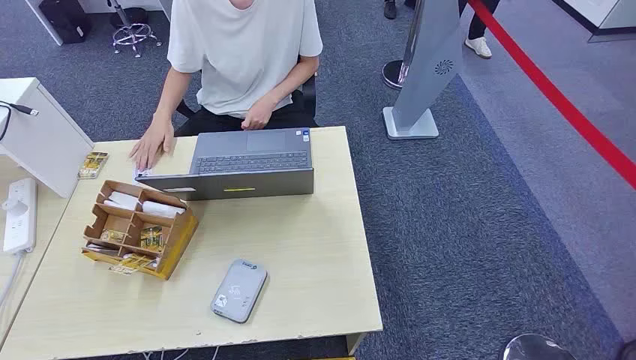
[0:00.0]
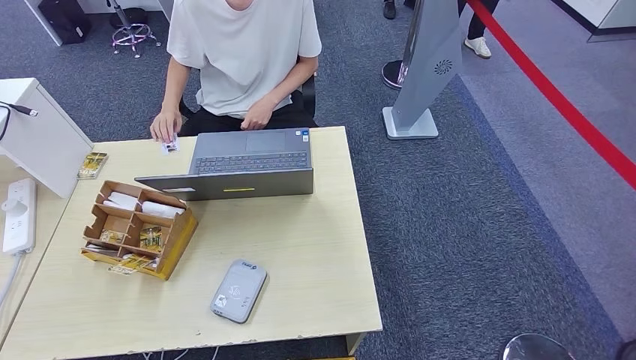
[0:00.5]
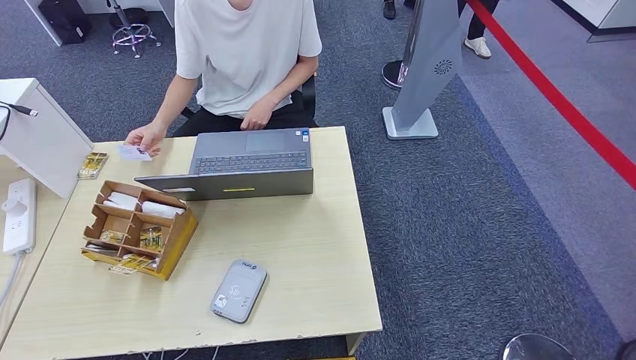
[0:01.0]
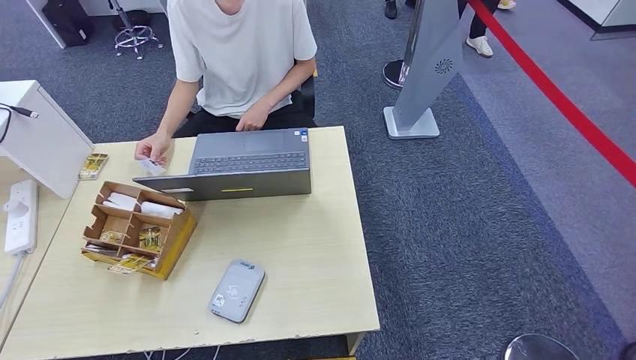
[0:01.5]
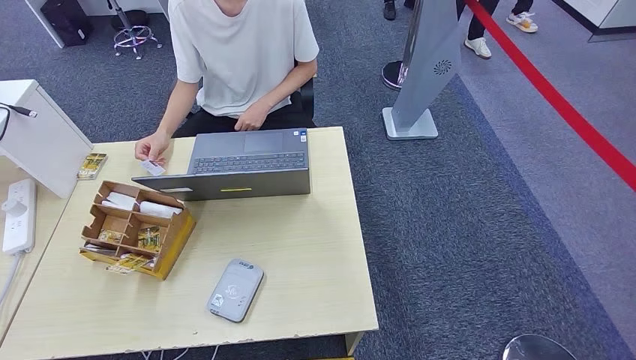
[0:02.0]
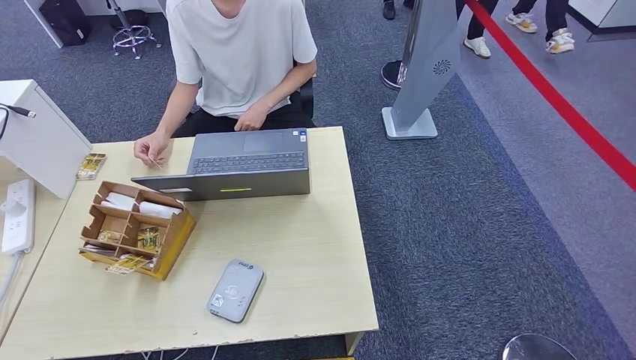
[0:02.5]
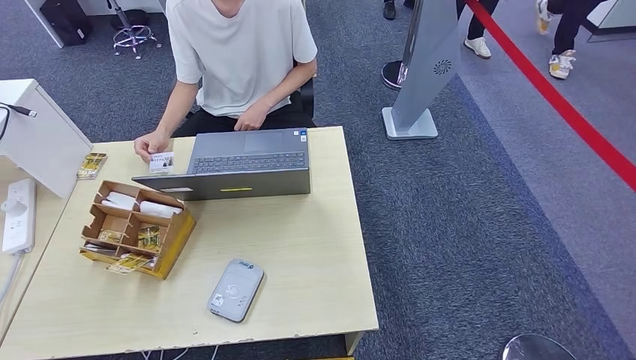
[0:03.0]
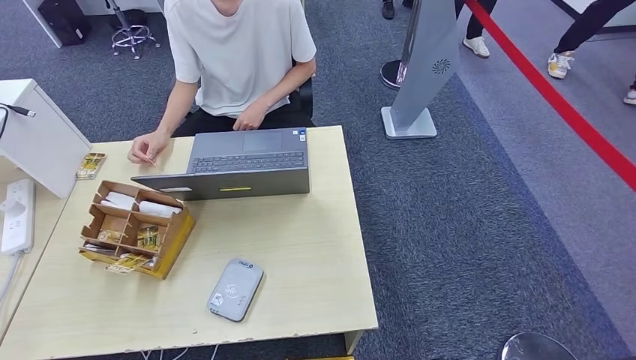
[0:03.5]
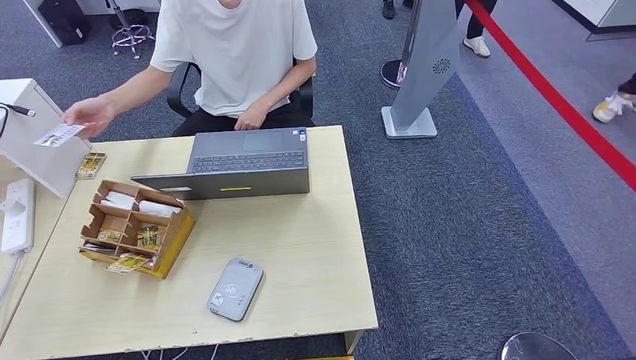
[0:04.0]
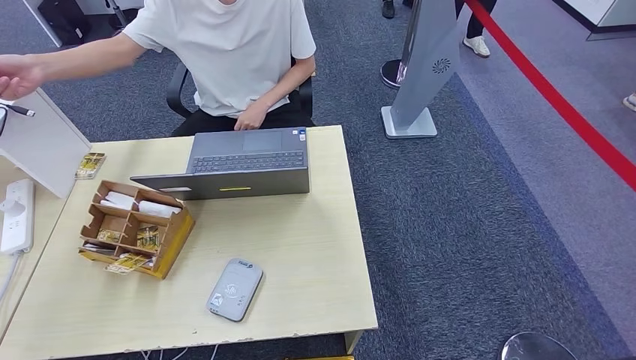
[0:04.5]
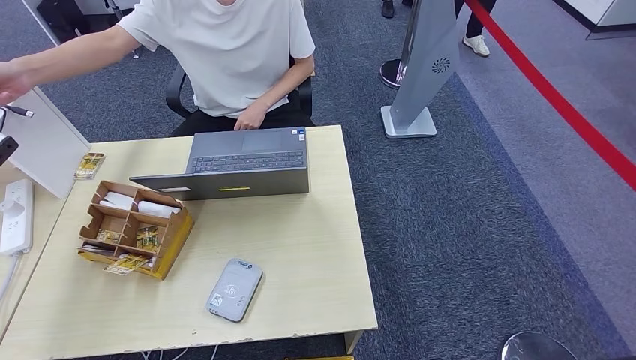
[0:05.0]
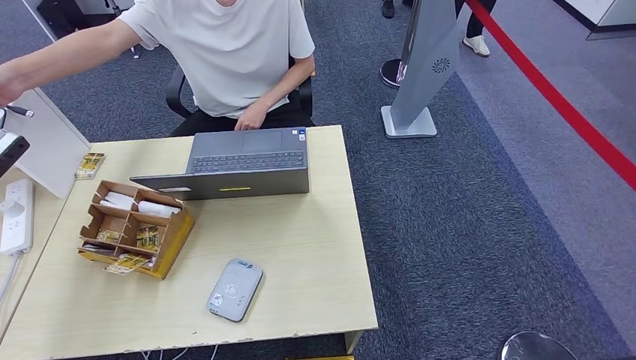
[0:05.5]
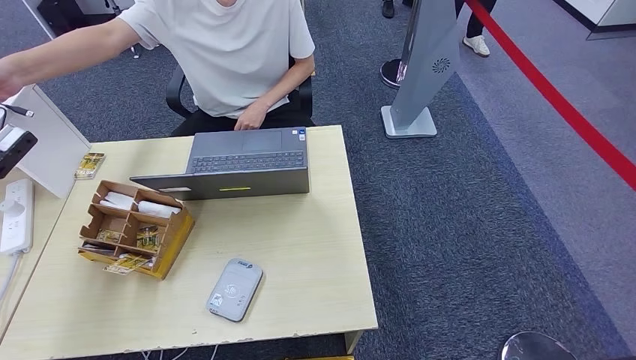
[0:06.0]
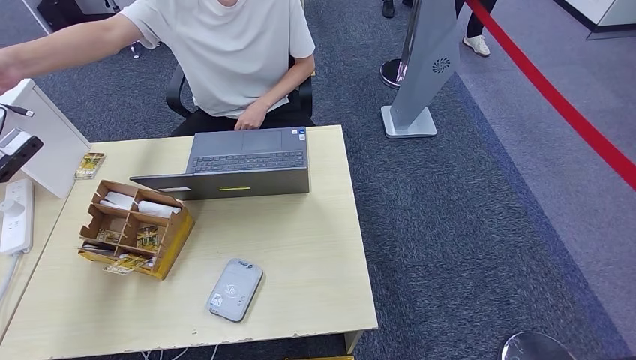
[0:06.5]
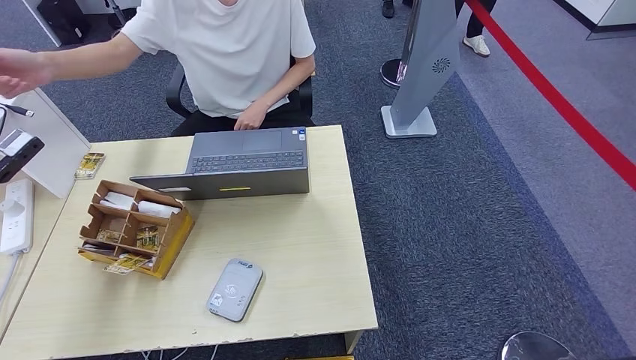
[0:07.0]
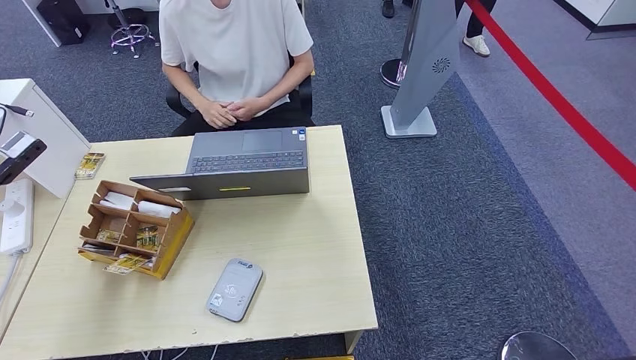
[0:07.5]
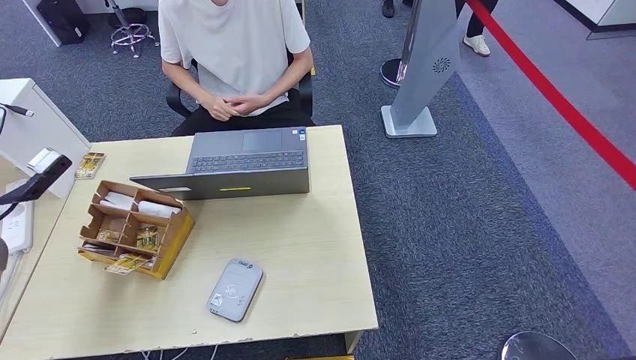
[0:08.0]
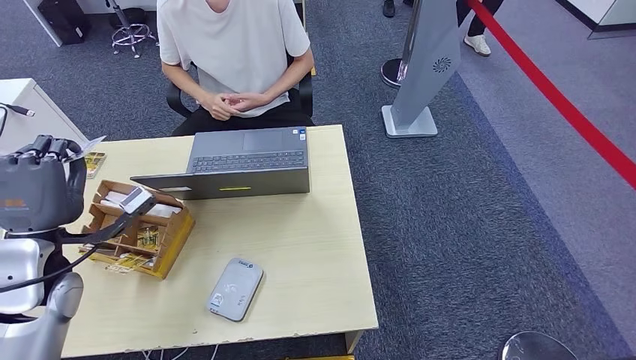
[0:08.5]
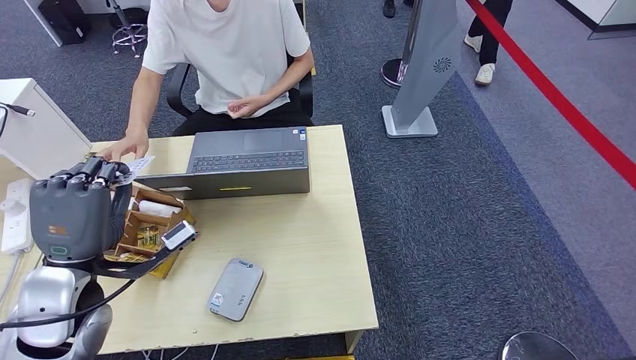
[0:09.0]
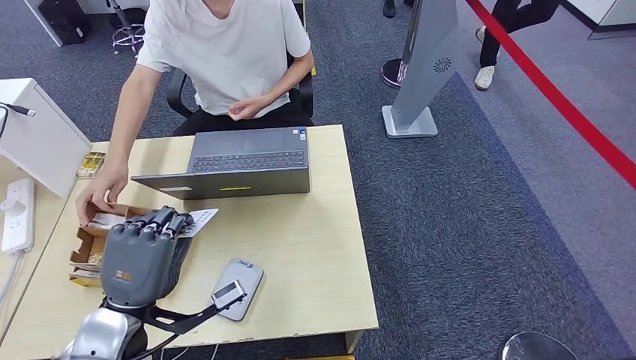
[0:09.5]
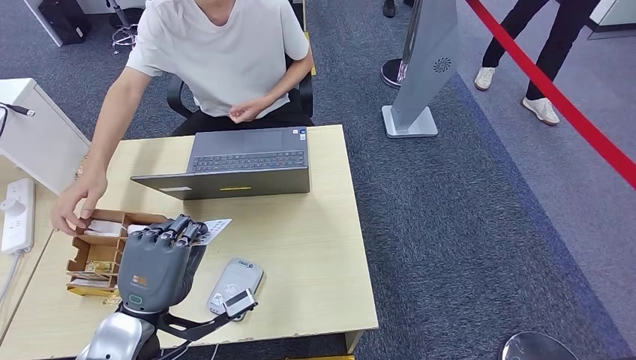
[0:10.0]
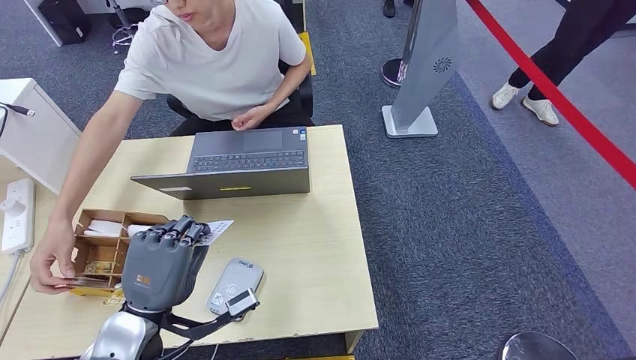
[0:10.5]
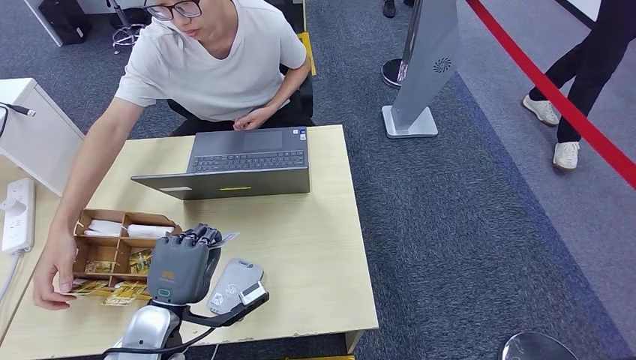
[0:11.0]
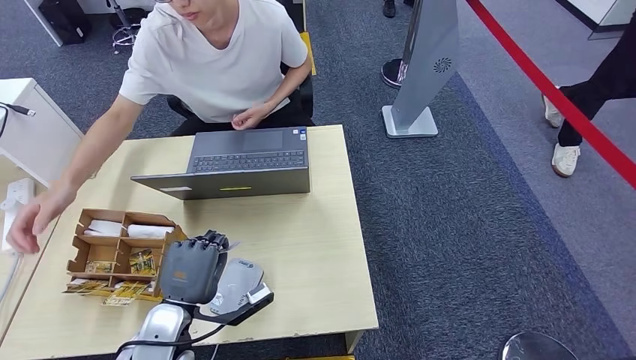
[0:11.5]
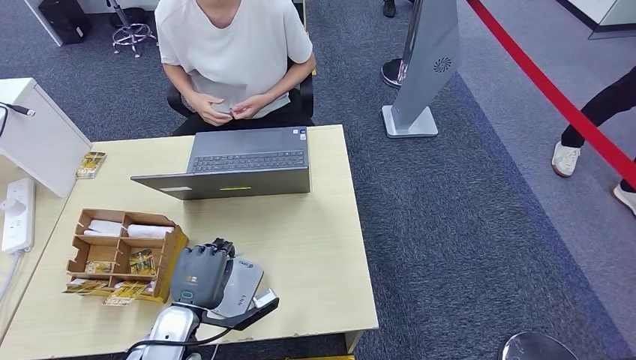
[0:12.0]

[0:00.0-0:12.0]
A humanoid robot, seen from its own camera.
Step, 0.0 to 6.5 s: Take the ID card from the person's hand.
Step, 7.0 to 11.5 s: Place the ID card on the card reader.
2.0 to 4.0 s: The left hand moves forward and upward, some 35 cm.
4.0 to 6.0 s: The left hand goes roughly 5 cm to the right.
6.0 to 8.0 s: The hands make only small movements.
8.0 to 10.0 s: The left hand is displaced to the right and backward by approximately 30 cm.
10.0 to 12.0 s: The left hand is displaced downward by approximately 10 cm.

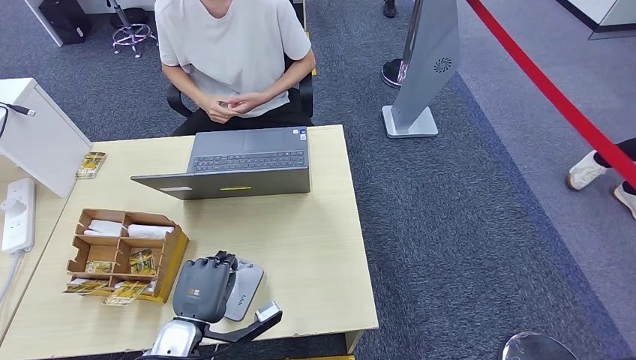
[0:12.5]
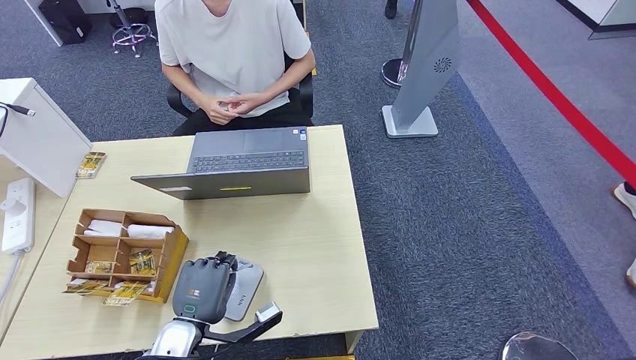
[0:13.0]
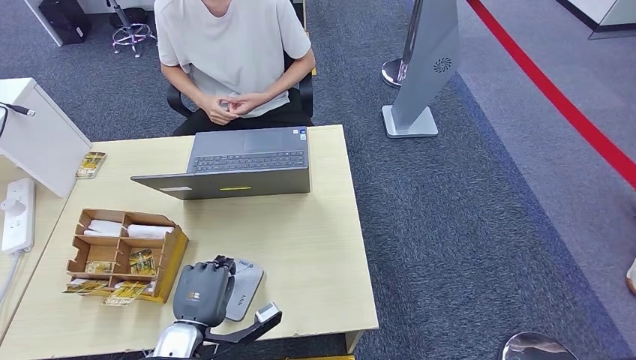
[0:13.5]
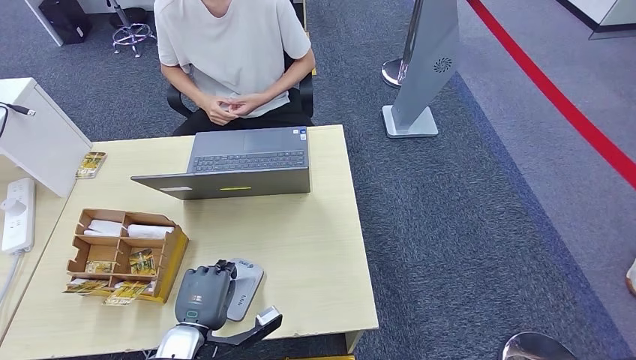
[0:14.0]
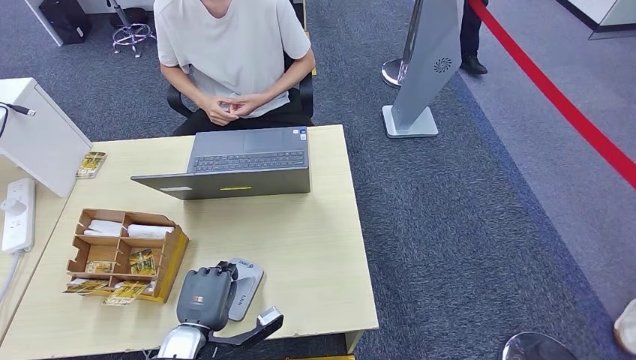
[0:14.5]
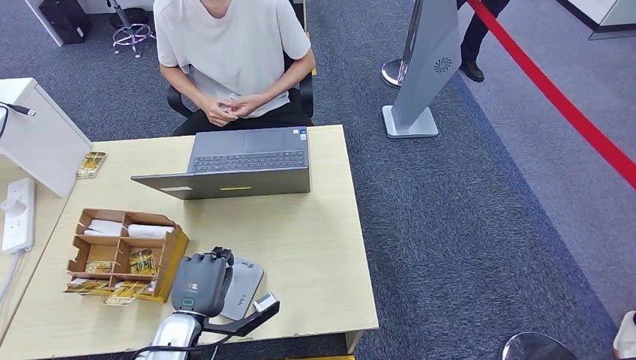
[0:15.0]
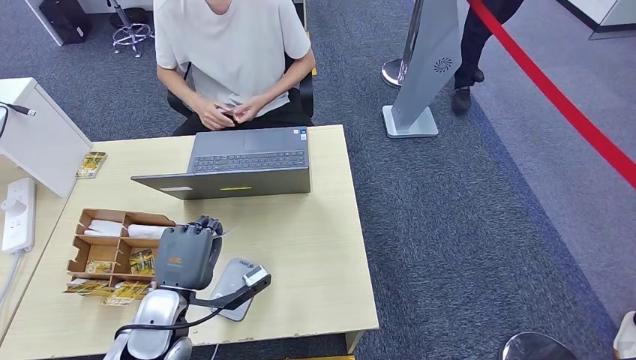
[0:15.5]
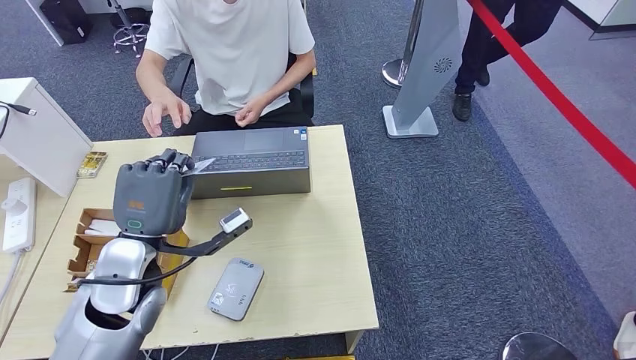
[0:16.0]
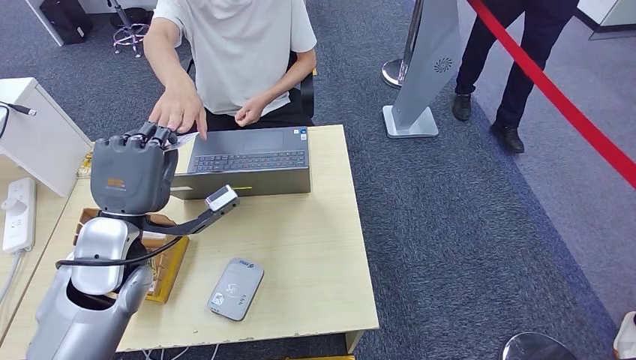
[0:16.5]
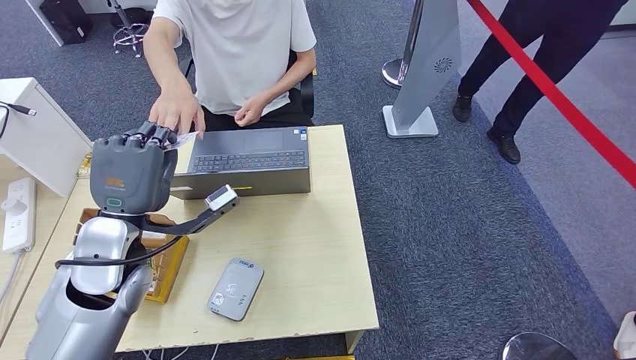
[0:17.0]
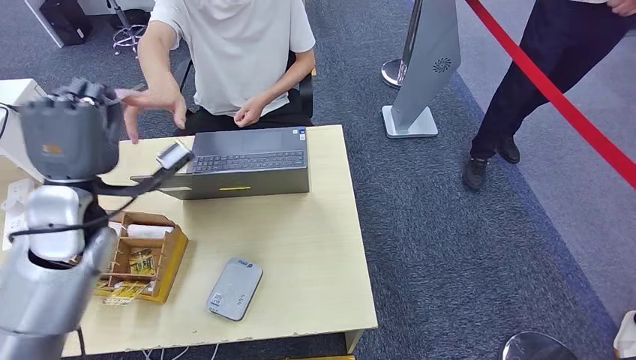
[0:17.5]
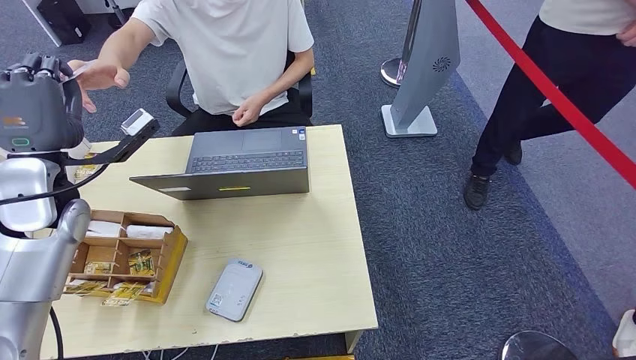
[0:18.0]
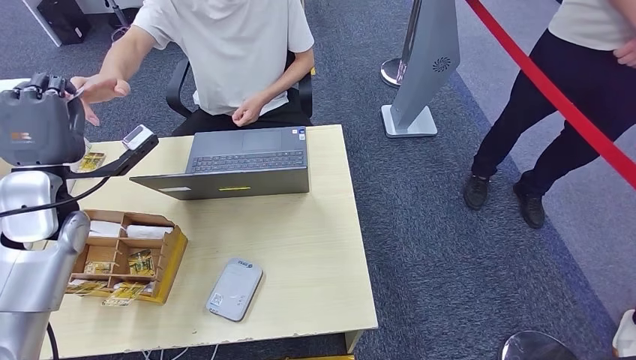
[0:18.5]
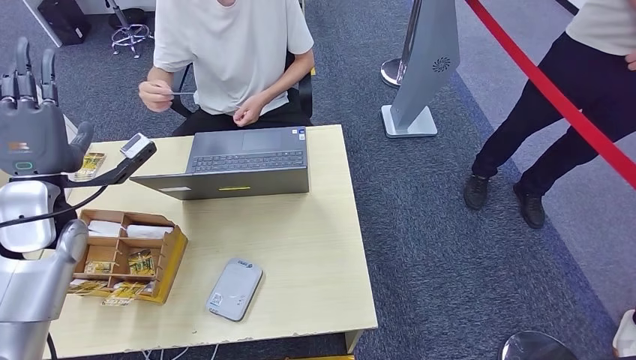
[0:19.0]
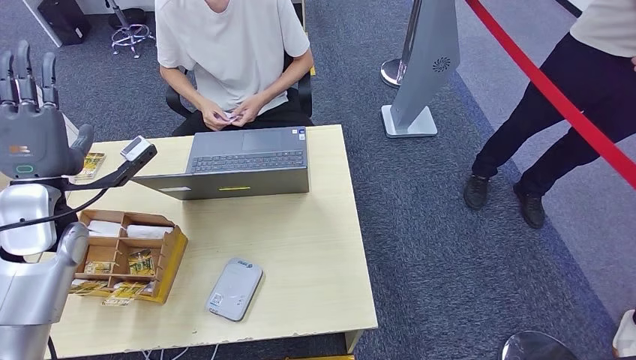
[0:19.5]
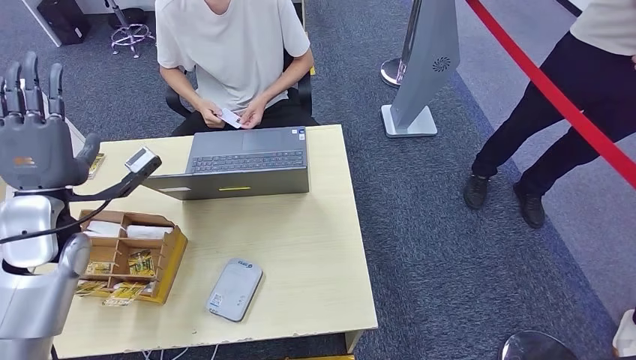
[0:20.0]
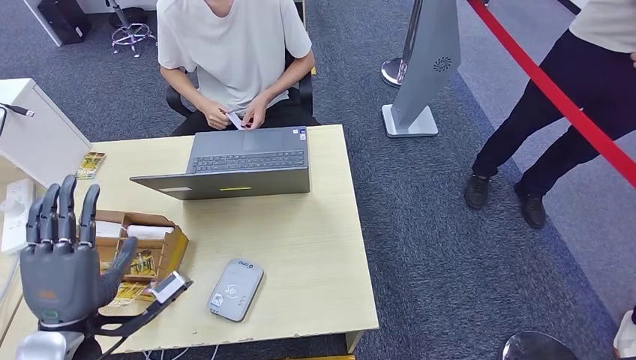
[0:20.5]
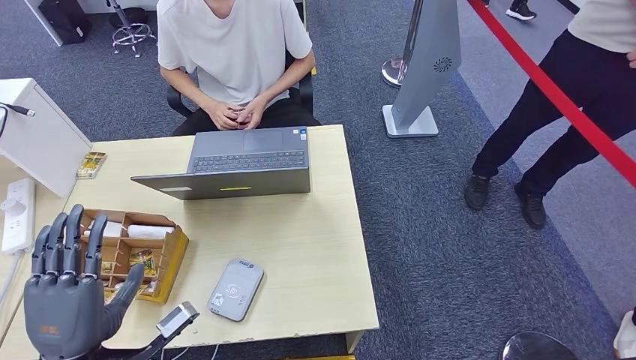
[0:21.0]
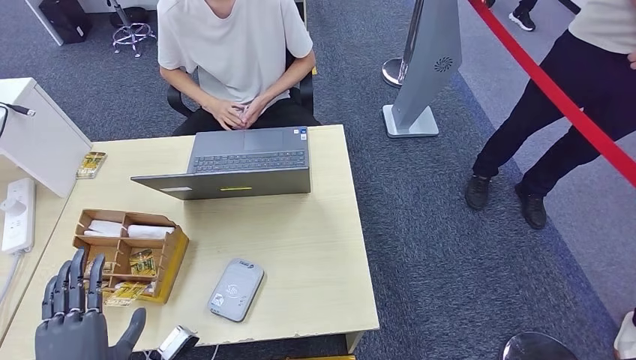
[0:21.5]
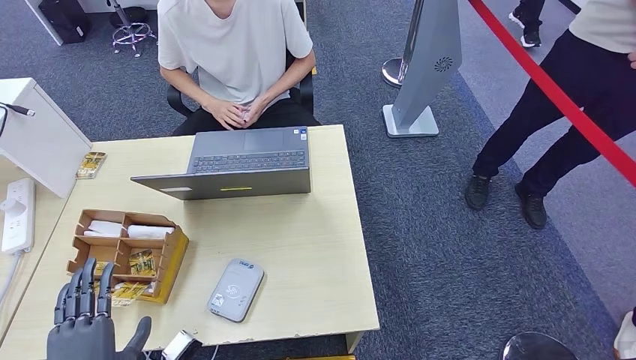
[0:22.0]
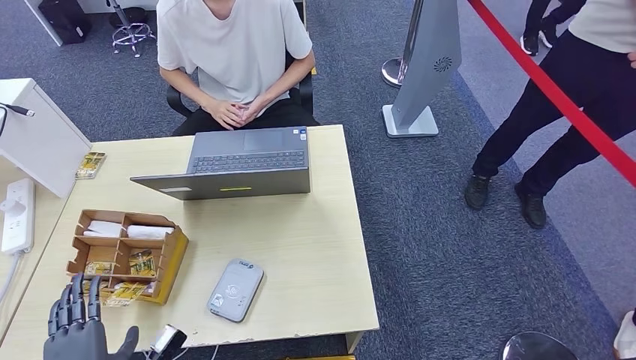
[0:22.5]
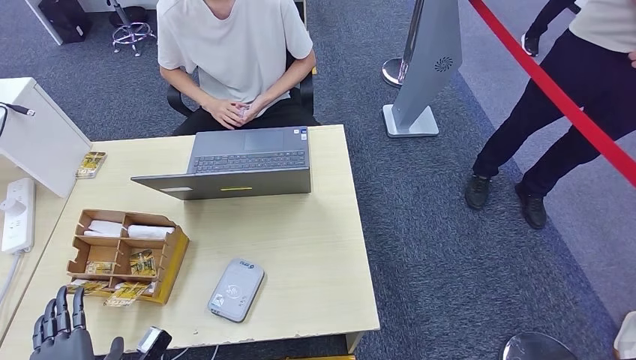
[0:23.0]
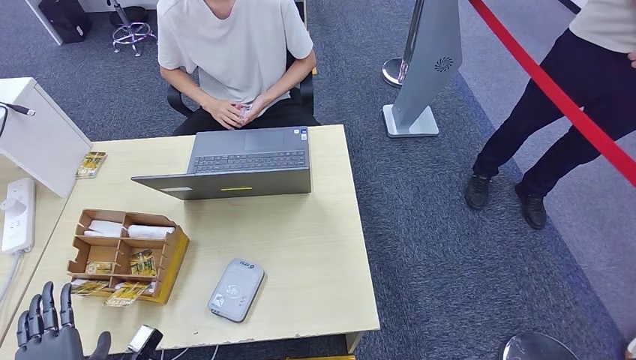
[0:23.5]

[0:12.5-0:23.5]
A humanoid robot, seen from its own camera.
Step, 12.5 to 18.0 s: Hand the ID card to the person.
12.5 to 14.5 s: The hands stay close to where they were, moving slightly.
14.5 to 16.0 s: The left hand heads upward and forward, covering about 20 cm.
18.0 to 20.0 s: The hands make only small movements.
20.0 to 21.5 s: The left hand moves backward and downward, about 30 cm.
21.5 to 23.5 s: The left hand heads downward and to the left, covering roughly 10 cm.
